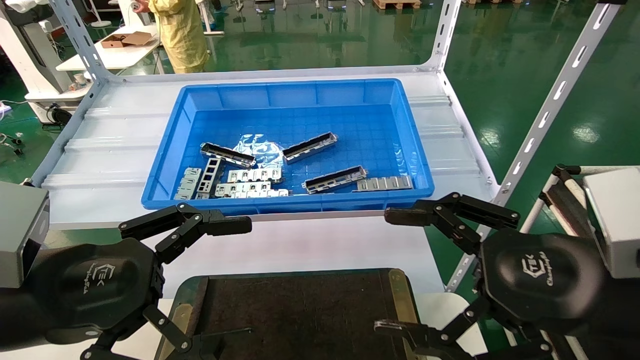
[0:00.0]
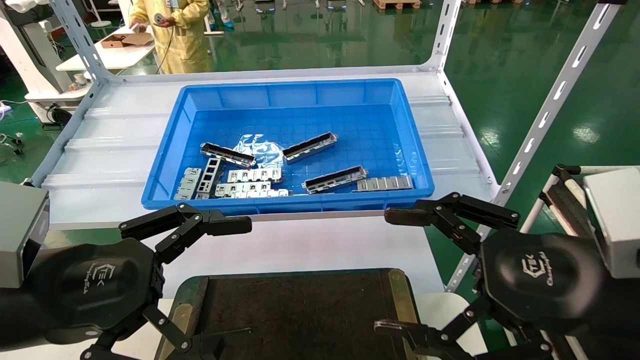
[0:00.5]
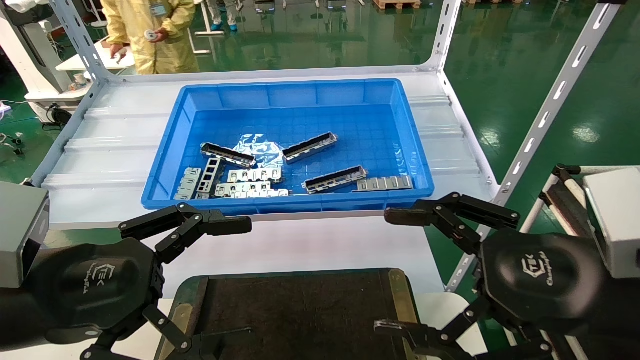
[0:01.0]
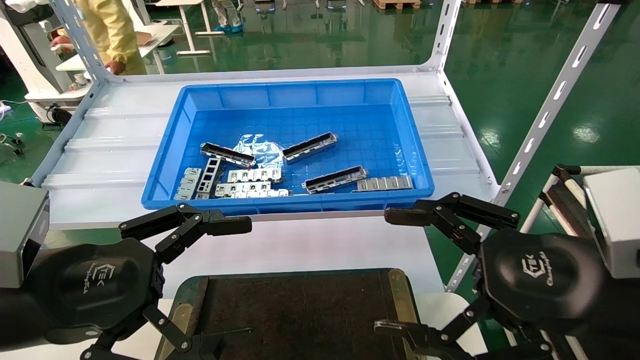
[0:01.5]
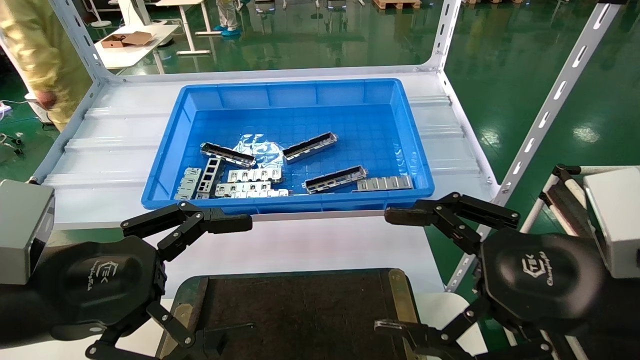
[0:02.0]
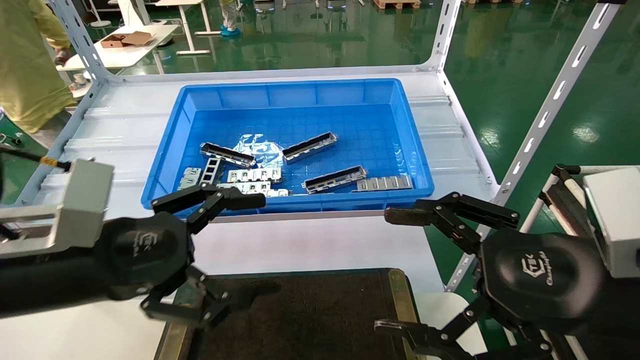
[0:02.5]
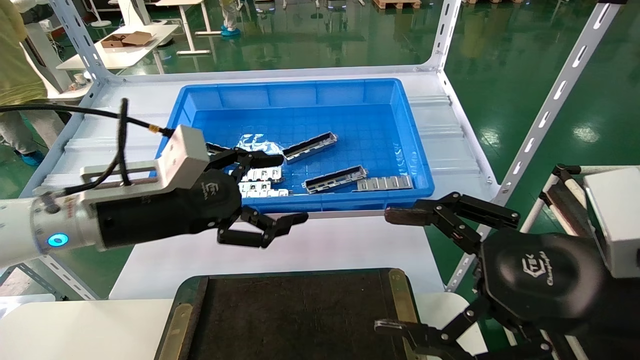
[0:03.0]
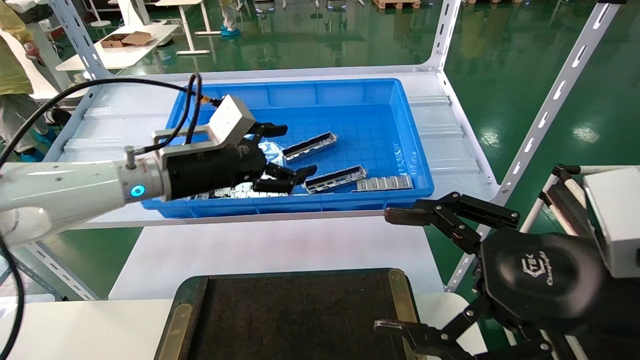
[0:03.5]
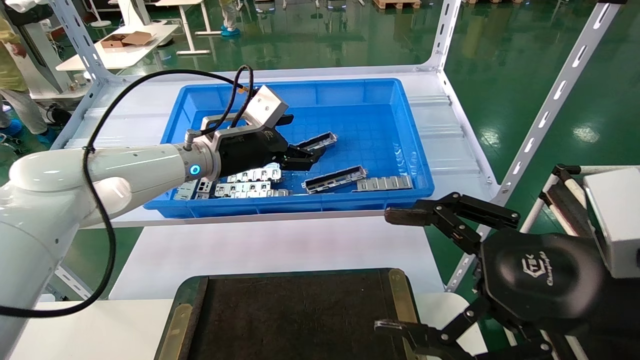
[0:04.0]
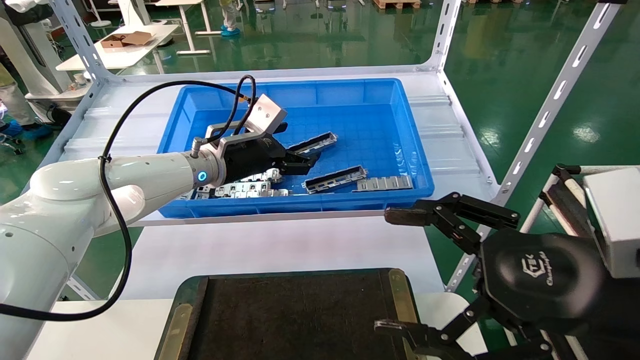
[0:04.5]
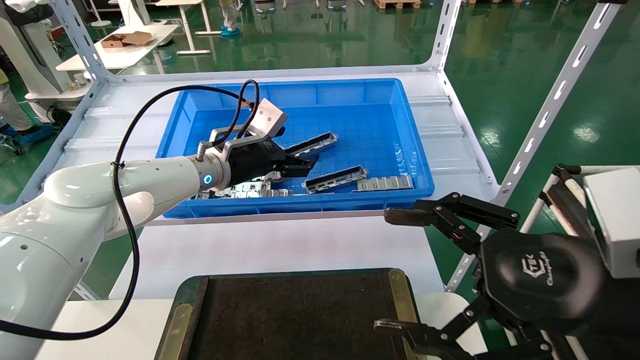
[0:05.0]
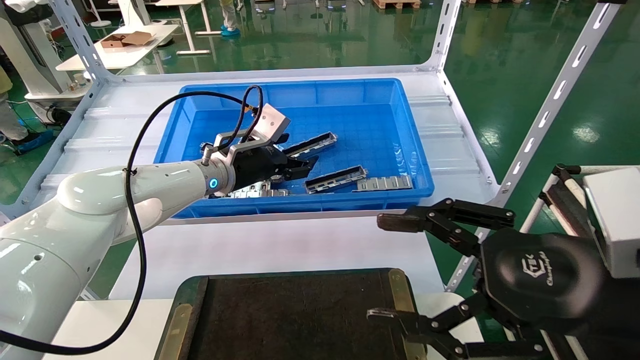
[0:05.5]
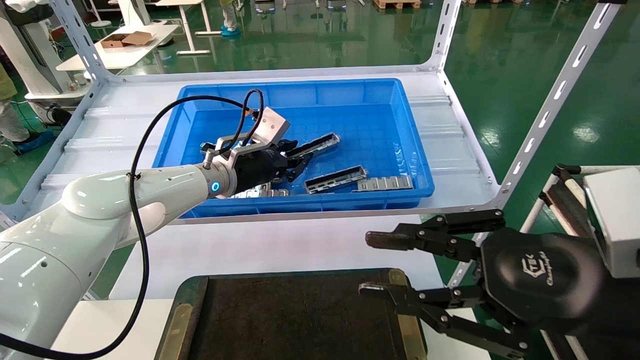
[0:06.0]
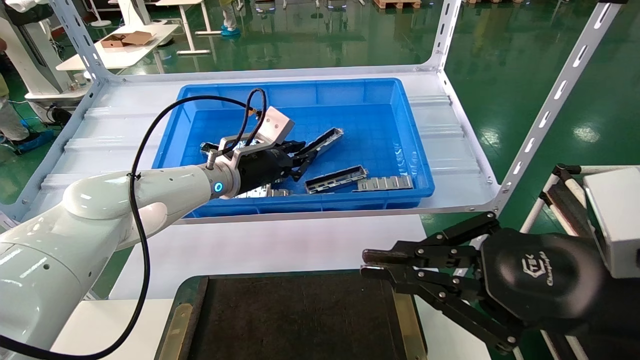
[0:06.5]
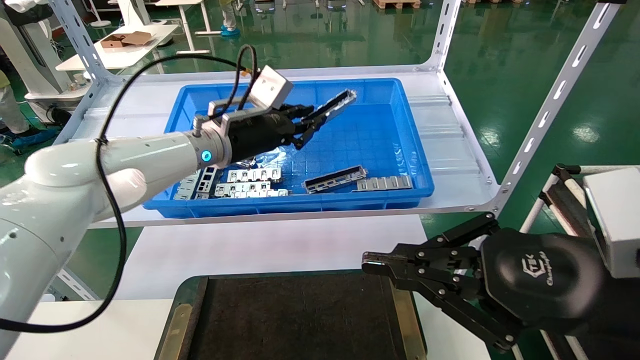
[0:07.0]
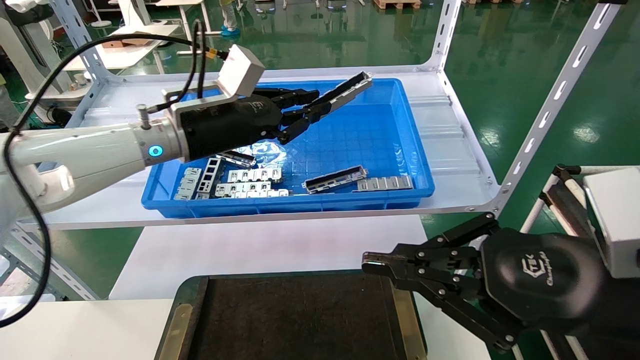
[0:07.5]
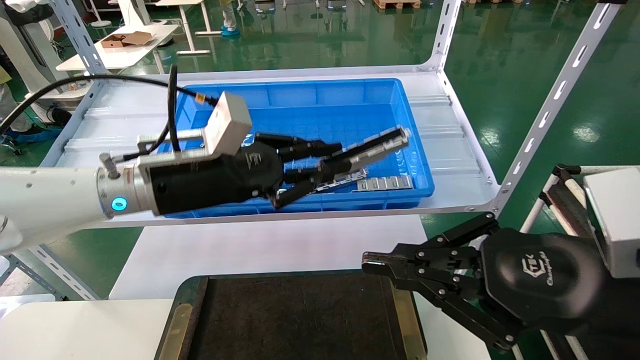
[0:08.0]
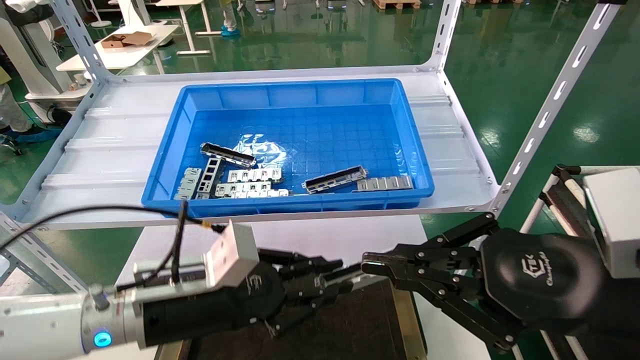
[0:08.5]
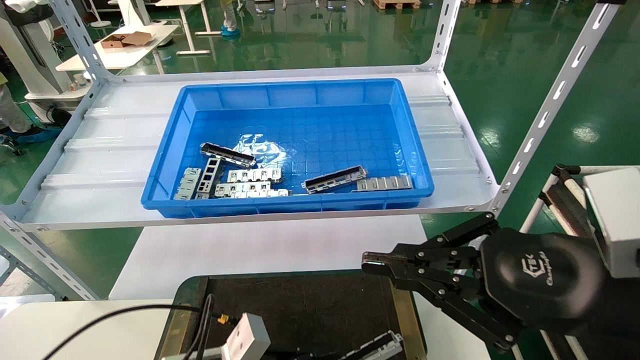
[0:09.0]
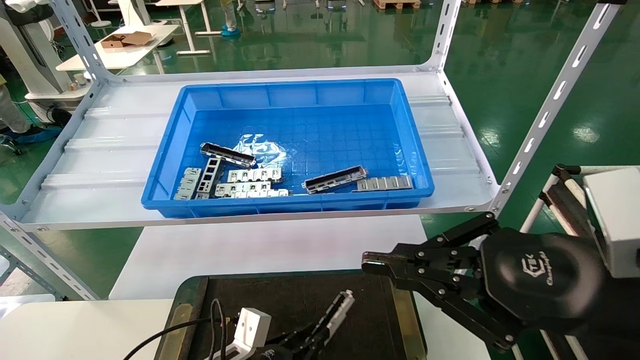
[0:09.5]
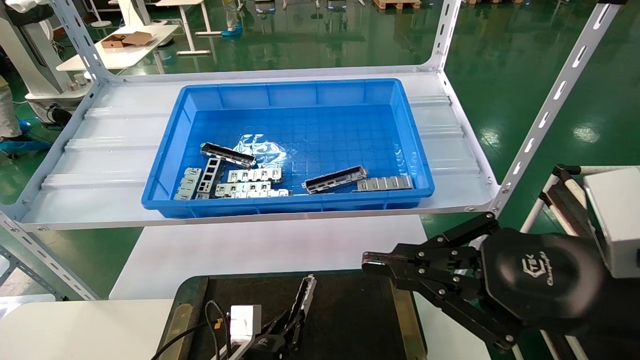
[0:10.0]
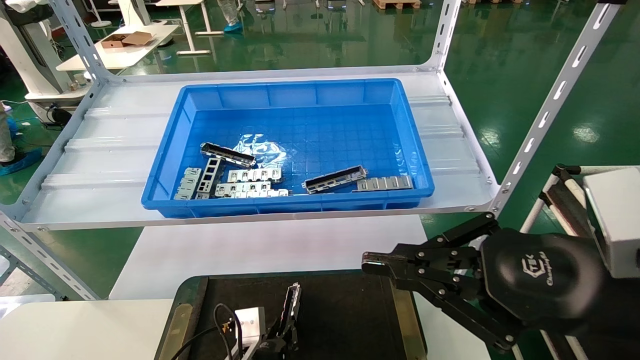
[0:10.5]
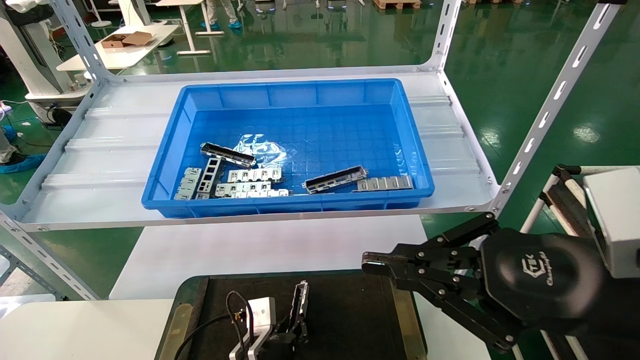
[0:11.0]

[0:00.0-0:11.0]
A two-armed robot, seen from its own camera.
Task of the whole recording: Grasp the part with one hand and place it on the black container.
Step, 0:03.0 to 0:06.5: Pick up the front USB bracket from the feeding area.
0:00.0 to 0:02.0: Both grippers stay about where they are.
0:02.0 to 0:03.5: The left gripper travels forward by some 20 cm.
0:03.5 to 0:05.5: The left gripper travels forward by roughly 10 cm.
0:05.5 to 0:07.5: The left gripper heads backward and upward, covering roughly 10 cm, and closes its fingers, while the right gripper closes up.
0:07.5 to 0:09.0: The left gripper shifts about 30 cm downward and backward.
0:09.0 to 0:11.0: The left gripper moves downward, to the right and forward, about 15 cm.

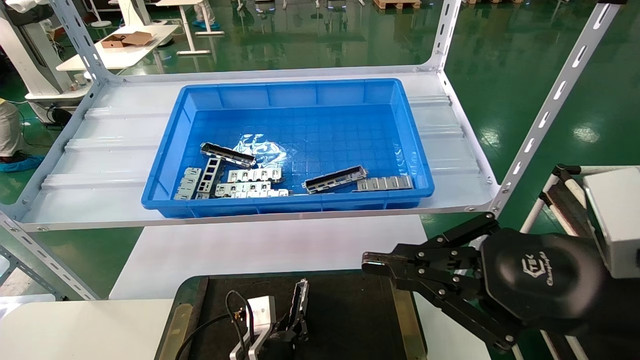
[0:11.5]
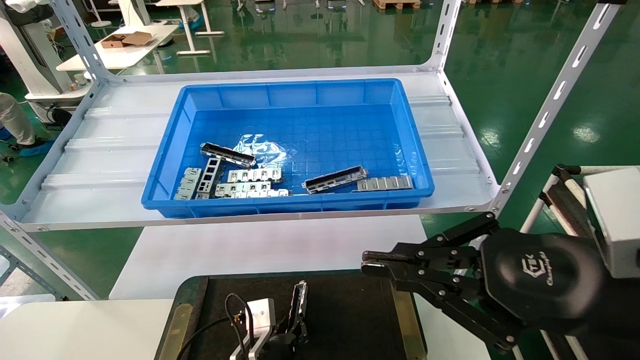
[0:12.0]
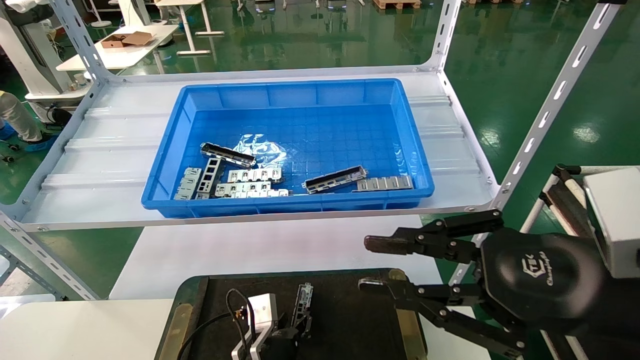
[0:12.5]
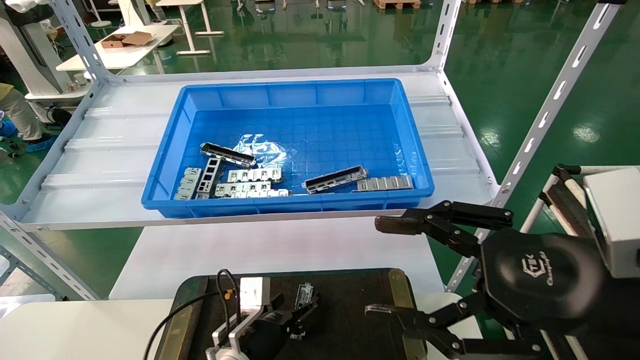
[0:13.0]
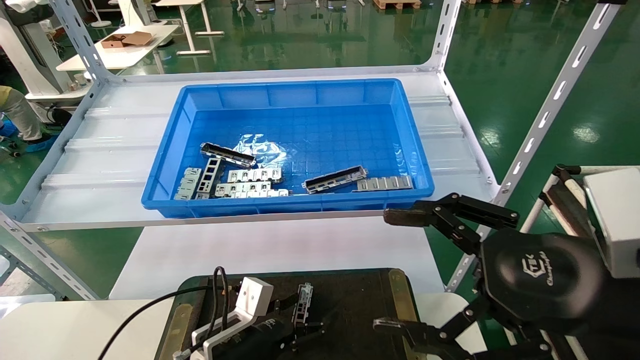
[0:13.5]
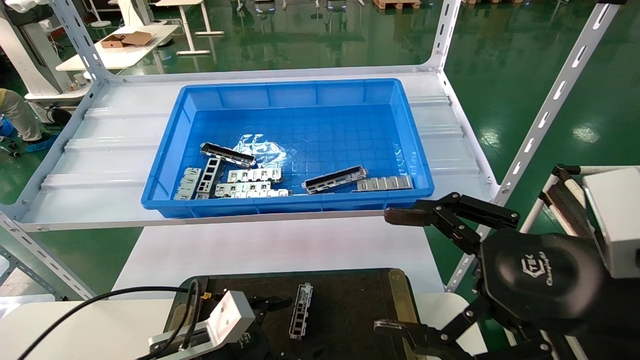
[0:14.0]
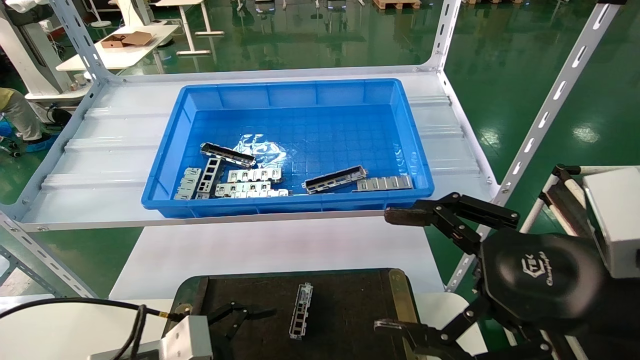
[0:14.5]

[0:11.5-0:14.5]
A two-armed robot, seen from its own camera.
Task of the whole recording: Grasp the part with one hand and place it on the black container.
0:11.5 to 0:13.0: The left gripper opens its fingers. The right gripper opens its fingers.
0:13.0 to 0:14.5: The right gripper opens its fingers. The left gripper heads to the left, backward and upward, covering some 20 cm, and opens.

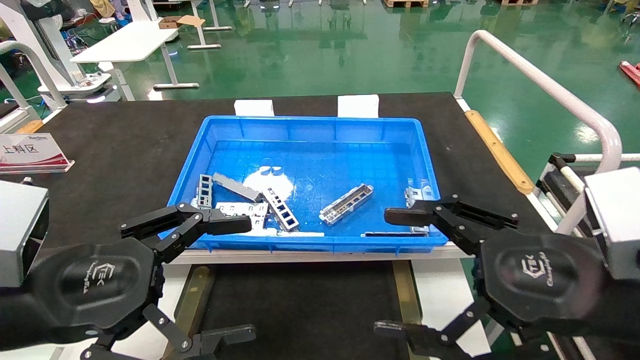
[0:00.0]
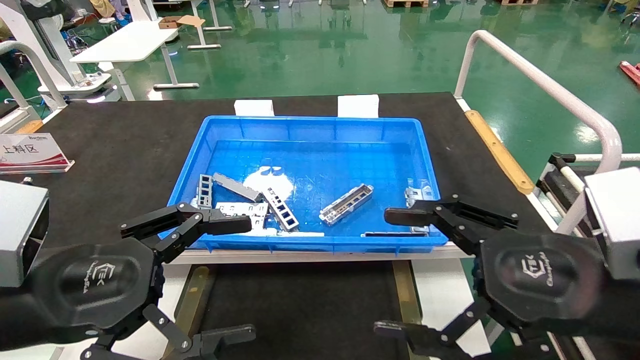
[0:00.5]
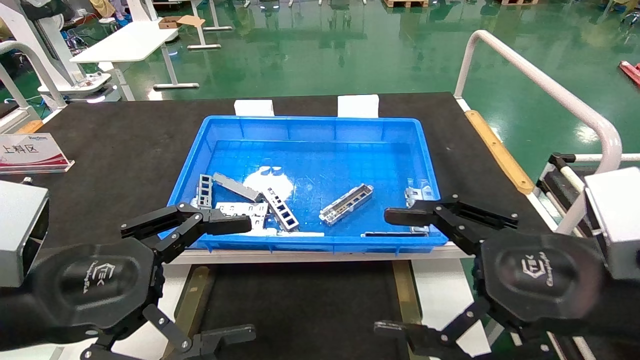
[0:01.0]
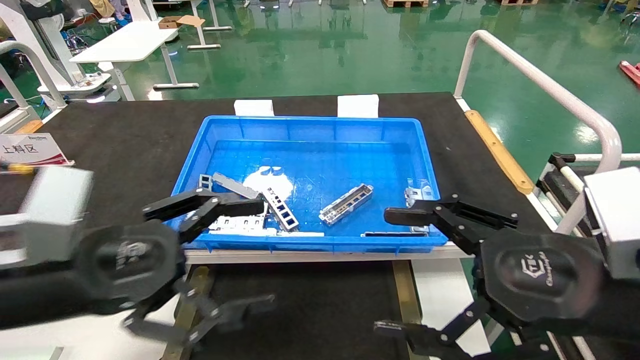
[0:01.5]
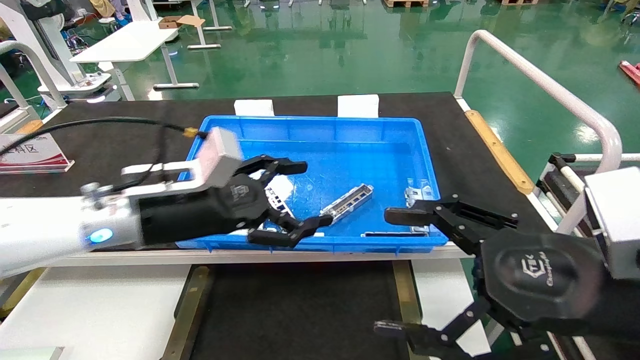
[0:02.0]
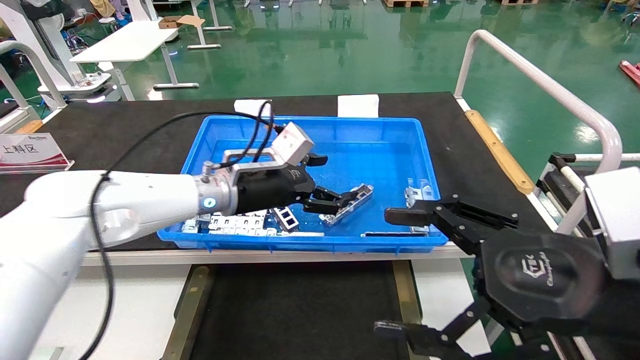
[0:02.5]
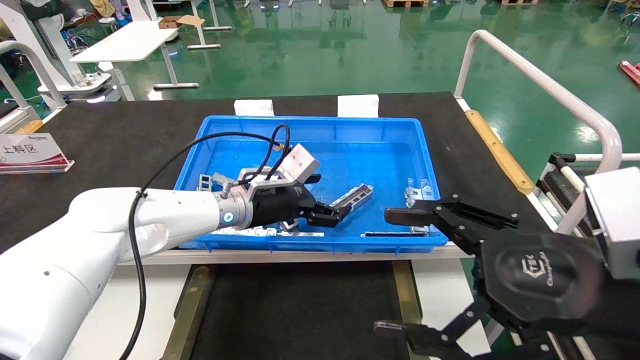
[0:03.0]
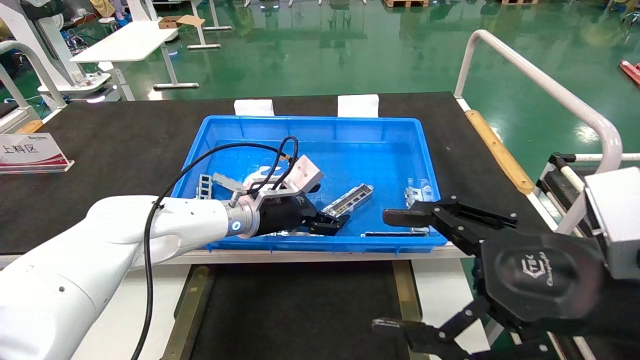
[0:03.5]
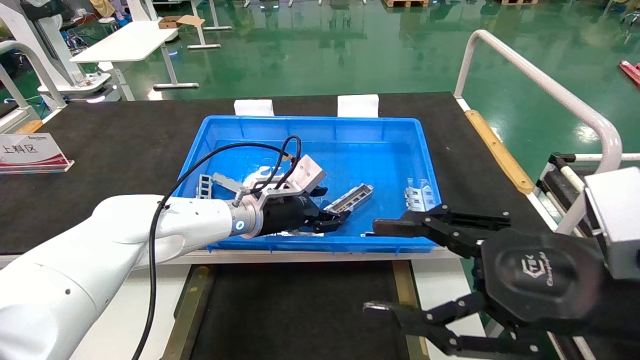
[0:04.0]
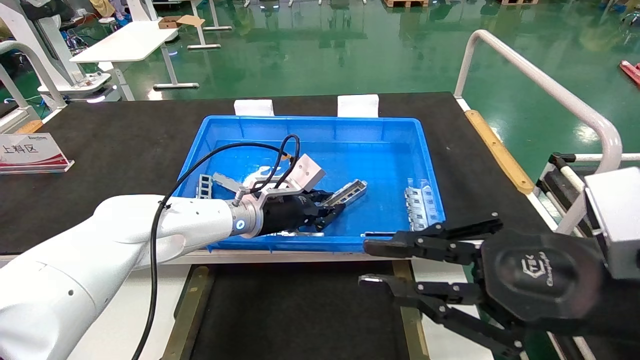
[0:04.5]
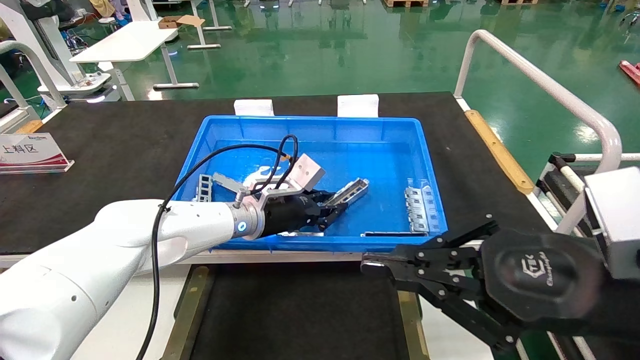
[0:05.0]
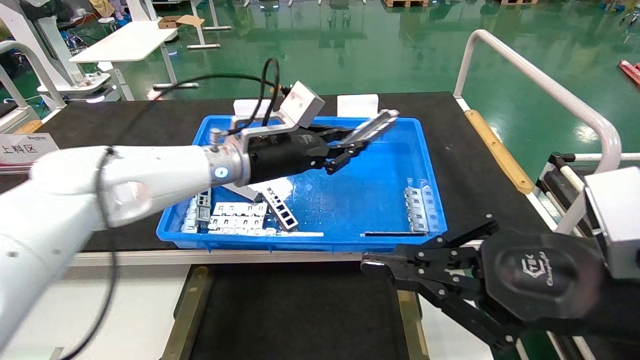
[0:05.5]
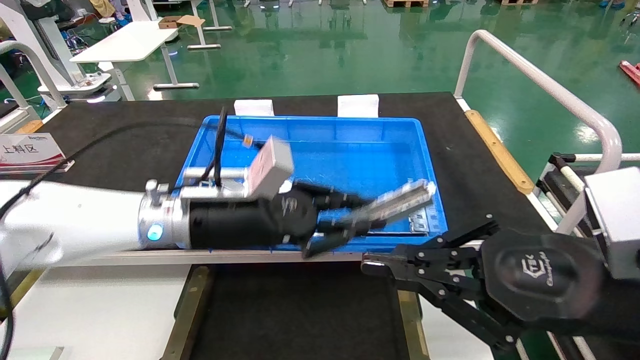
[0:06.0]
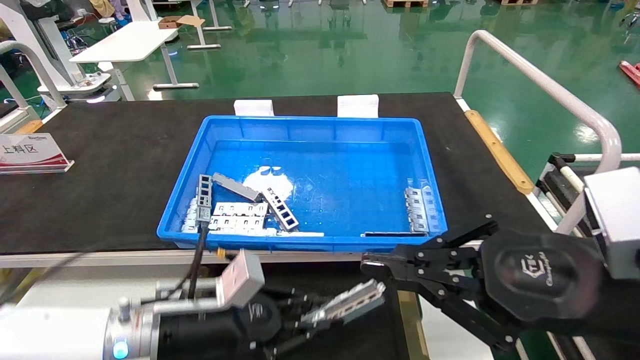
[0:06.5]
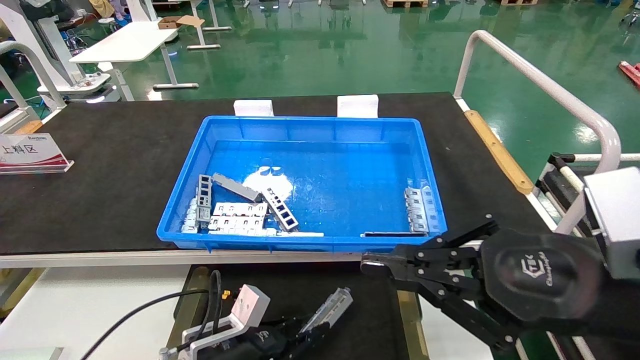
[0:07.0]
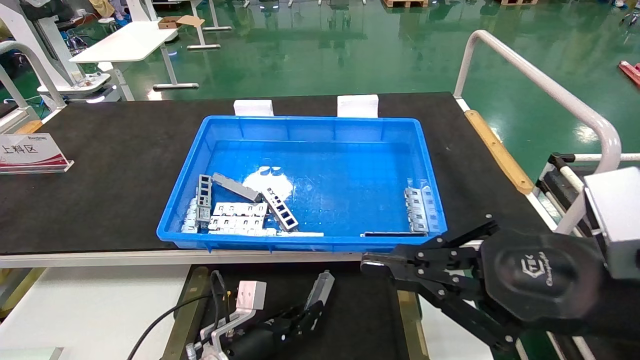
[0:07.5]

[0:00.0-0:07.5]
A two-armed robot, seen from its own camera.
Task of the whole recording: Grasp the part with one hand and place it on the black container.
Step, 0:02.0 to 0:04.5: Pick up the front USB bracket from the feeding area.
0:00.0 to 0:02.0: The left gripper is displaced forward and to the right by approximately 15 cm.
0:02.0 to 0:04.0: The left gripper heads forward, to the right and downward, covering approximately 15 cm.
0:04.0 to 0:05.5: The right gripper closes; the left gripper heads upward, covering some 10 cm, and closes its fingers.
0:05.5 to 0:07.5: The left gripper heads downward, covering roughly 30 cm.
